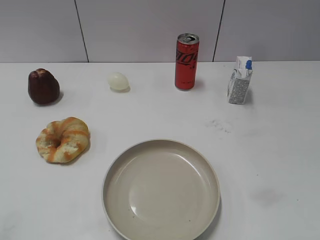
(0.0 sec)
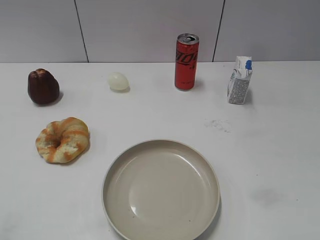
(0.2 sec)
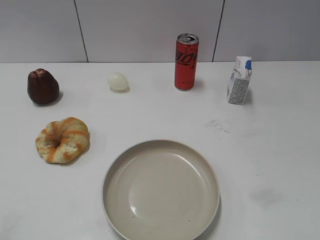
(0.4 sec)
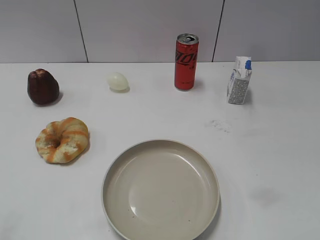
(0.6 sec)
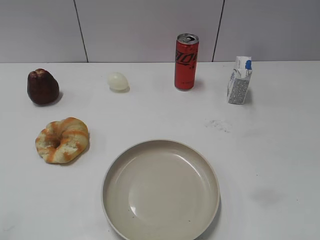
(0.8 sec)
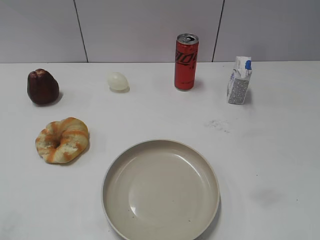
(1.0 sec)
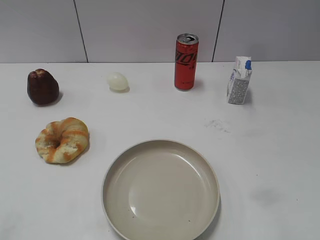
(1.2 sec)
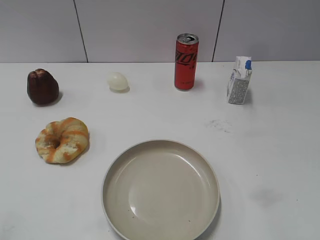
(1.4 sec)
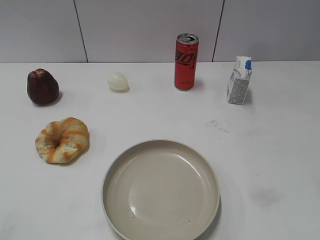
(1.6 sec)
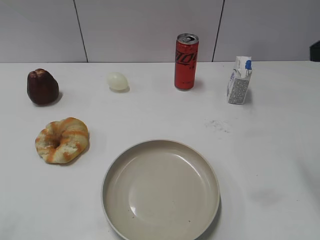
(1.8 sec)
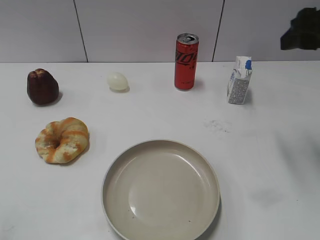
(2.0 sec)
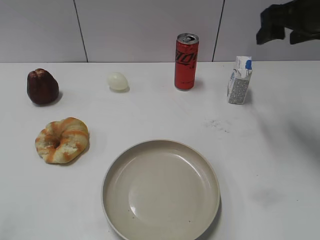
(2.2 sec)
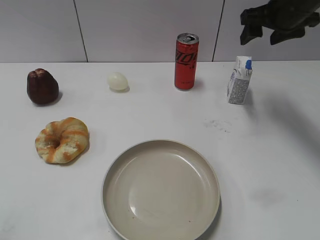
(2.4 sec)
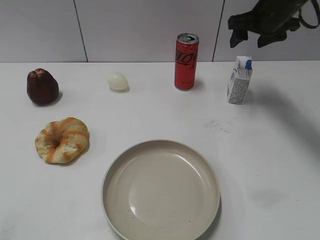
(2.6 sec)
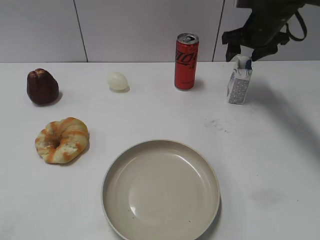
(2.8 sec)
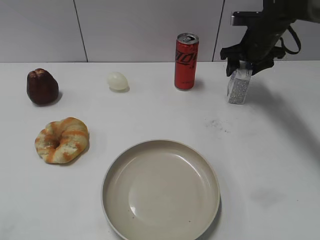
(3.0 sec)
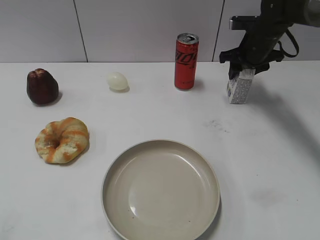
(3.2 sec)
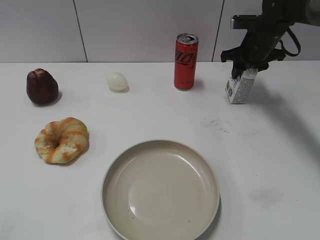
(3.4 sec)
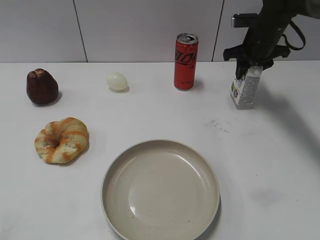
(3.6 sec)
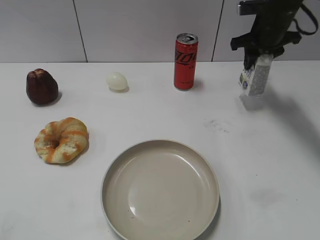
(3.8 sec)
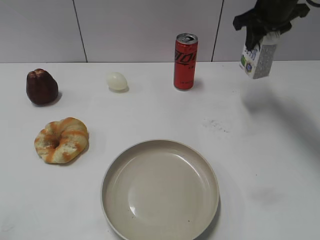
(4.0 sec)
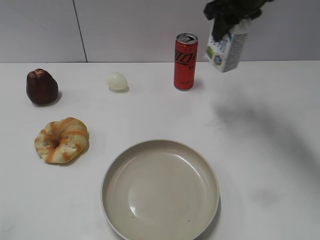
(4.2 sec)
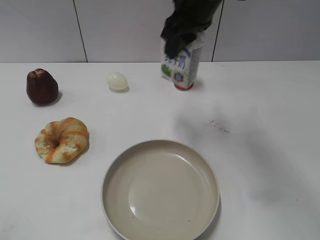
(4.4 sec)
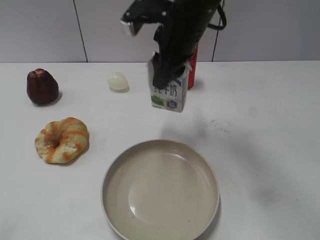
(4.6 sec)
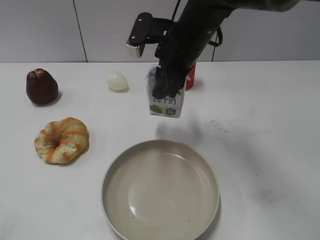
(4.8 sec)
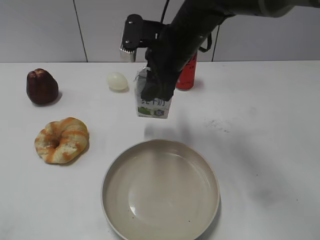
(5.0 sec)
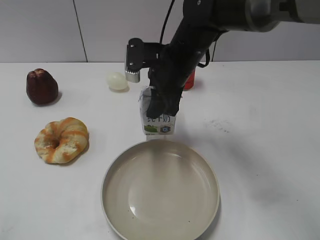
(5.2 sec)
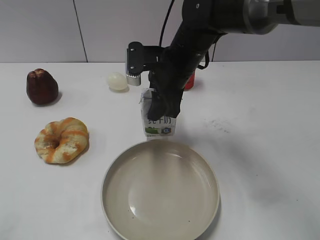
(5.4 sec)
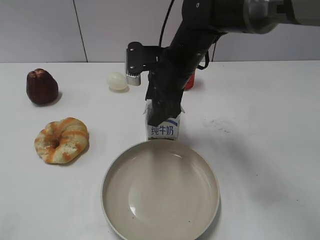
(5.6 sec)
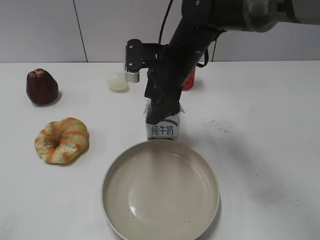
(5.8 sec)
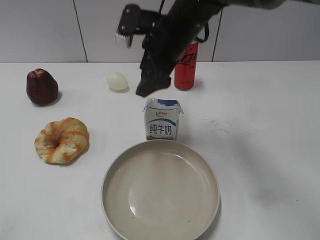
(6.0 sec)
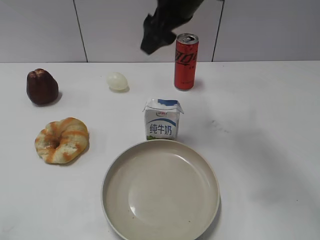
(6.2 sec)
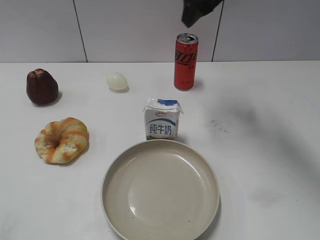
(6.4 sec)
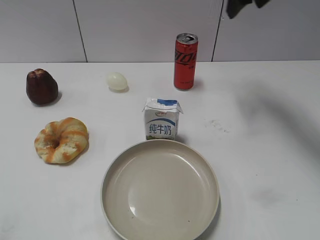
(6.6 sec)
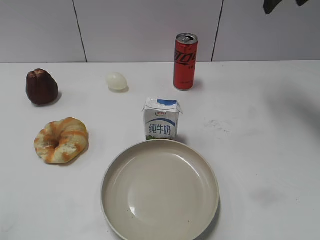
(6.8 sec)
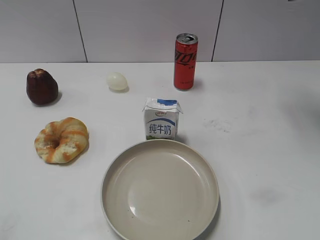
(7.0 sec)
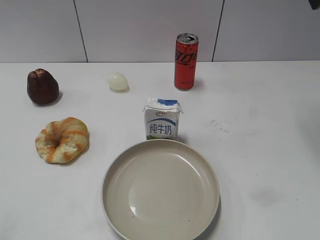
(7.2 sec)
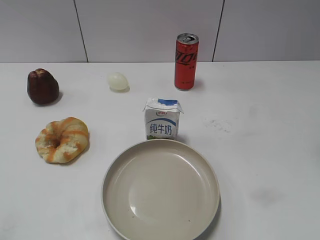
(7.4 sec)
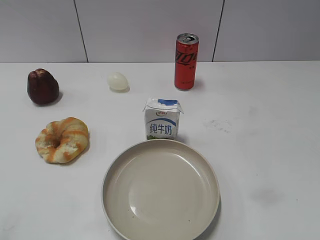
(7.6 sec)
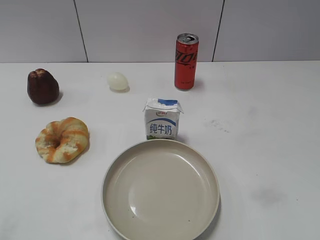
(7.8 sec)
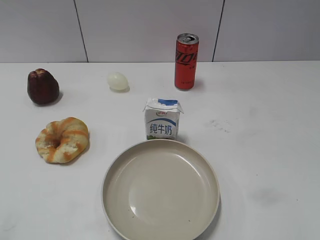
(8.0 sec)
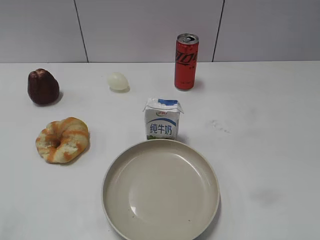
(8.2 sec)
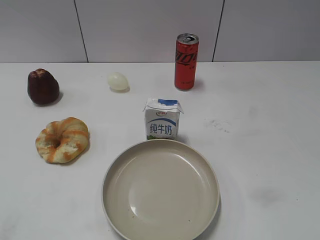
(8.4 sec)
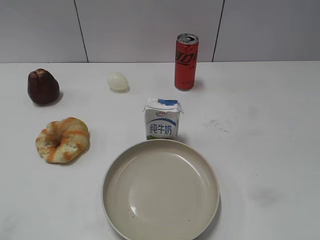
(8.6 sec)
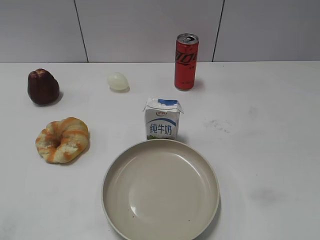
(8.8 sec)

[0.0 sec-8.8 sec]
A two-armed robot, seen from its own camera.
Step, 0.0 sec to 3.6 sec: Grasp the milk with right gripper.
Step, 3.8 sec to 5.6 sec: Place the milk on the table with right gripper.
1.4 sec to 3.0 sec: The right gripper heads forward and downward, covering some 40 cm.
3.0 sec to 4.4 sec: The right gripper shifts roughly 25 cm to the left, upward and backward, and closes its fingers.
4.4 sec to 5.8 sec: The right gripper heads downward, covering about 10 cm, and opens up.
5.8 sec to 7.4 sec: The right gripper shifts about 35 cm to the right, upward and backward.

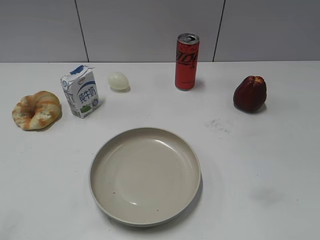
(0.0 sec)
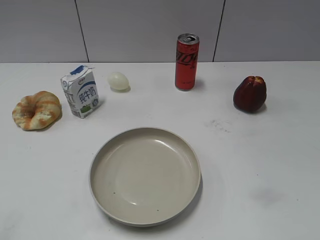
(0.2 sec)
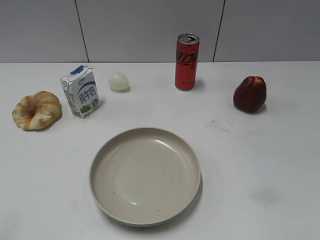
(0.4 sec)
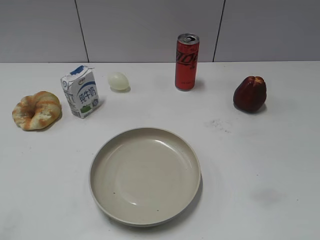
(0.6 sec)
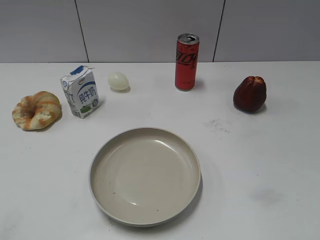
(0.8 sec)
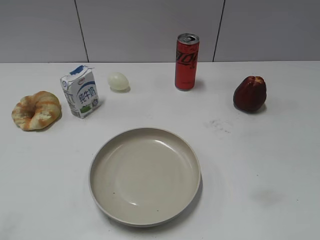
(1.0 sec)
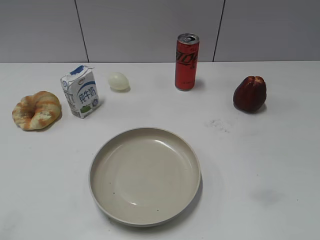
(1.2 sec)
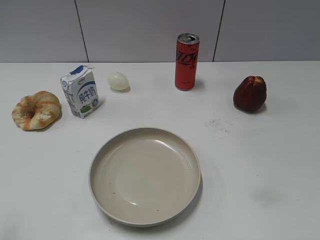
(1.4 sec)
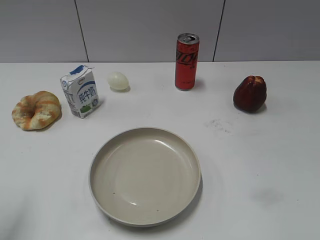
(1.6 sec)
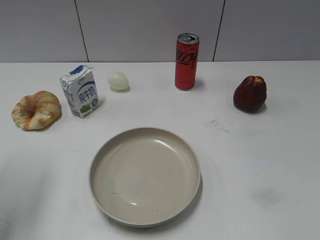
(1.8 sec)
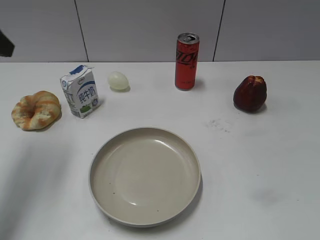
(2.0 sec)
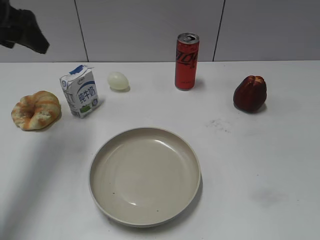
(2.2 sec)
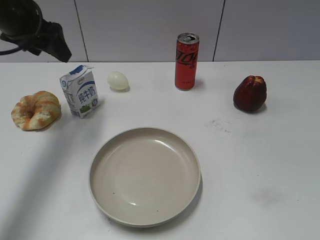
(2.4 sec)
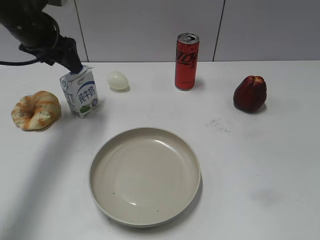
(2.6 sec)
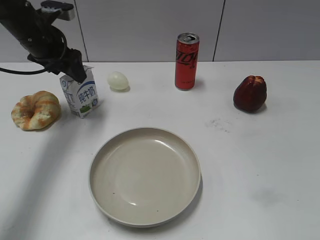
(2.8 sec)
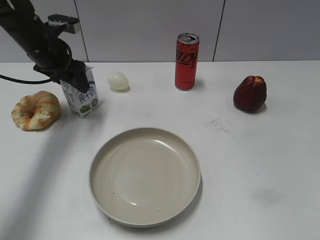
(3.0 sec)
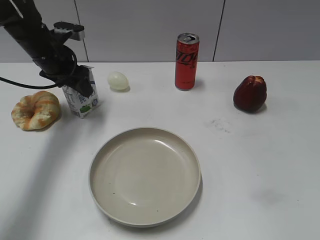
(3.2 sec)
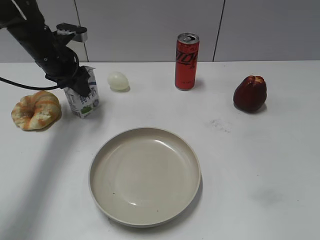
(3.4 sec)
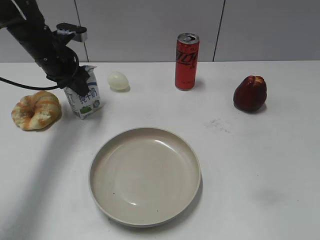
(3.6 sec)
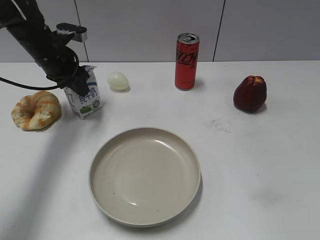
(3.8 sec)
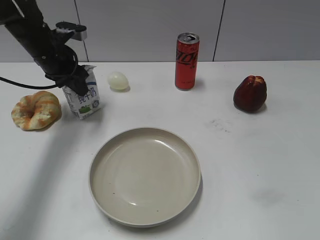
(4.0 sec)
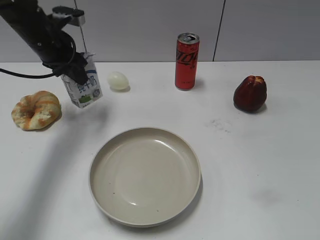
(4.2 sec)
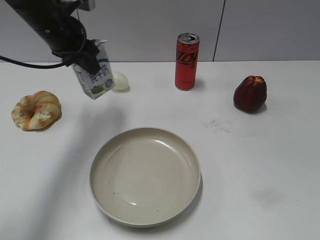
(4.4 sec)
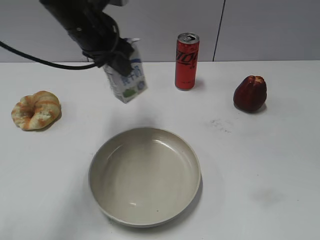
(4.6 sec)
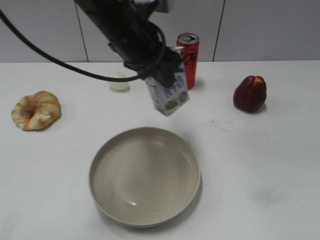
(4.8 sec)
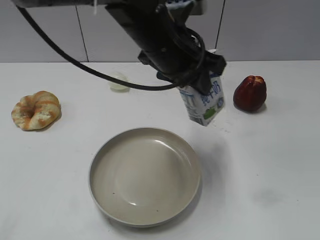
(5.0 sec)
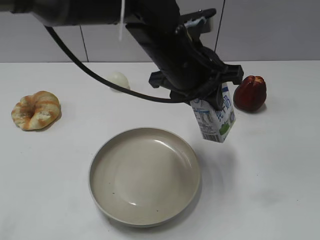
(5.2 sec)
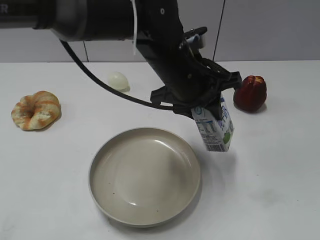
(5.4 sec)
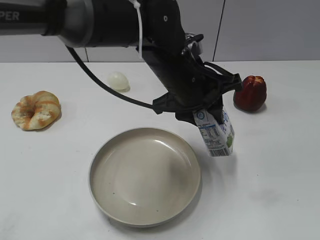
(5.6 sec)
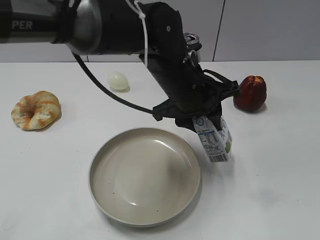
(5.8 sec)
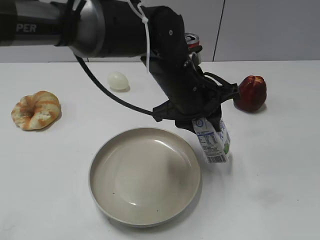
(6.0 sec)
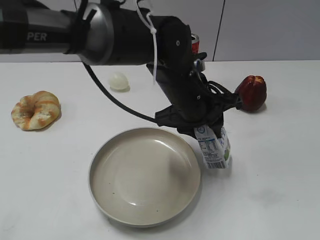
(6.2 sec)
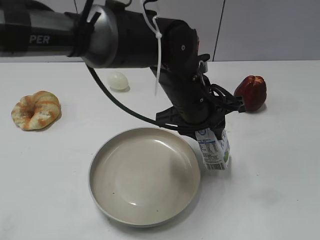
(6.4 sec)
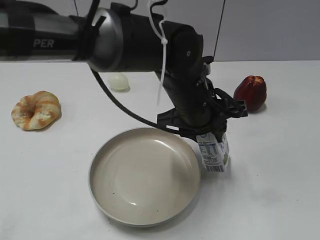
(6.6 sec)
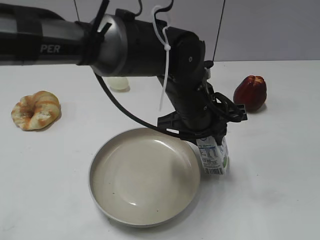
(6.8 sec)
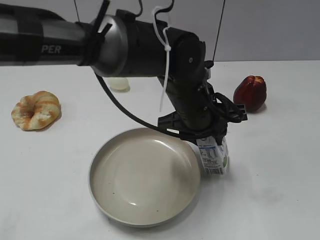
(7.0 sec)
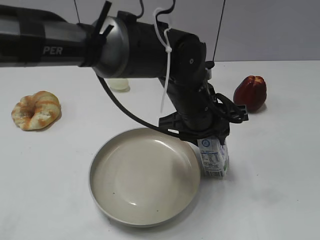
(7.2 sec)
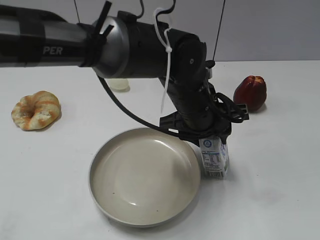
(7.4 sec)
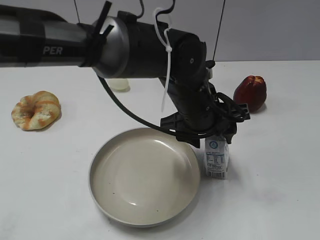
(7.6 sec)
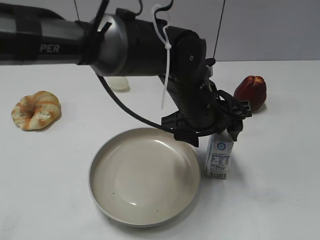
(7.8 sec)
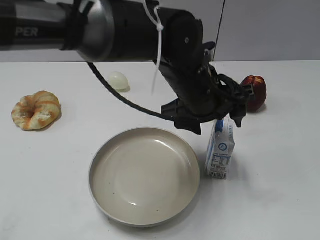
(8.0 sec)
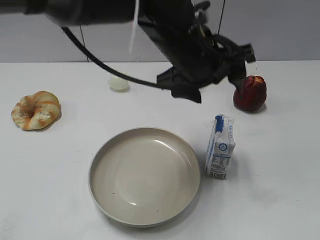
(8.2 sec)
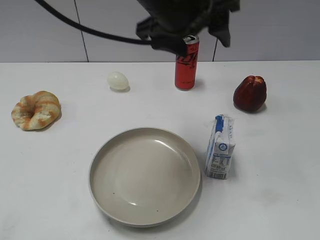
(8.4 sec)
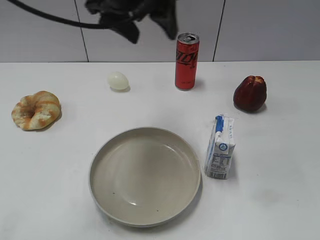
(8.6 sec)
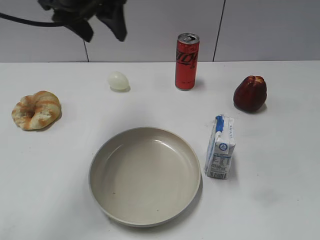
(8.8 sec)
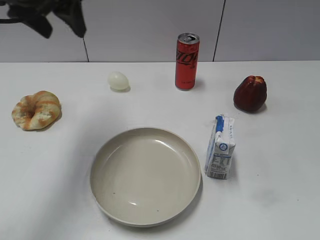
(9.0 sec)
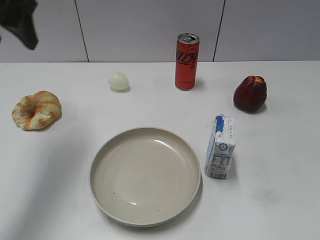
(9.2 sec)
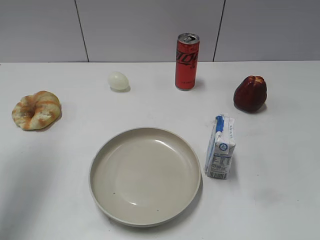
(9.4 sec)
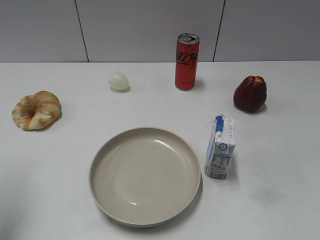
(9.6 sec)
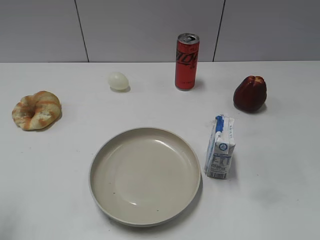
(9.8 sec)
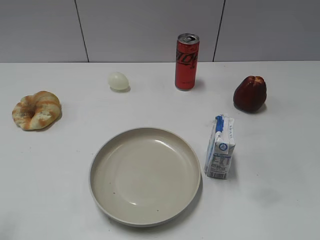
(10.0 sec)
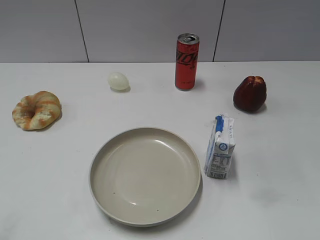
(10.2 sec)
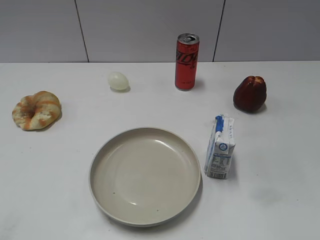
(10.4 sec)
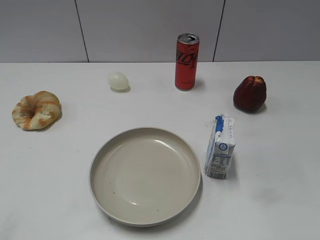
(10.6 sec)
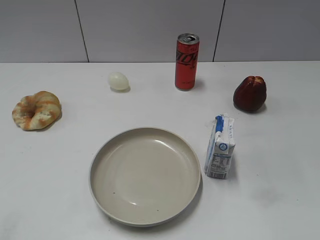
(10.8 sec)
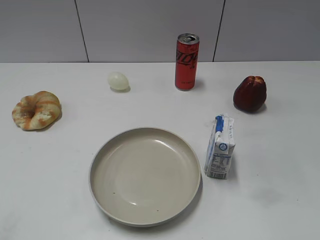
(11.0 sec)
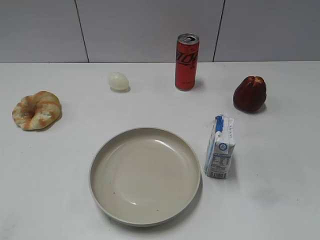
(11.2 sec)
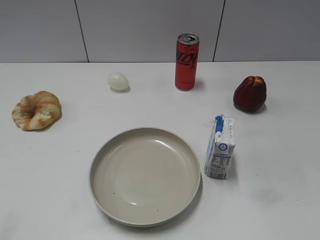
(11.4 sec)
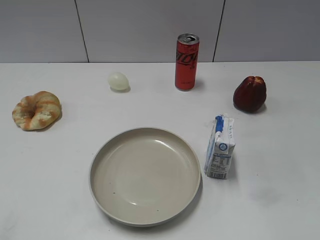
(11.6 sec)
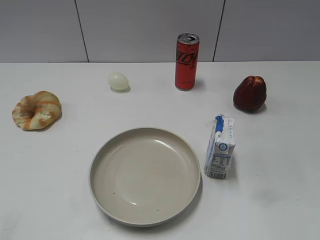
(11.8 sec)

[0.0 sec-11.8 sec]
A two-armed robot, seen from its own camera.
Step, 1.2 sec to 3.6 sec: Grasp the milk with left gripper.
Step, 3.8 sec to 8.0 sec: Place the milk on the table with left gripper.
1.4 sec to 3.0 sec: The left gripper shifts about 35 cm forward.
3.0 sec to 4.4 sec: The left gripper travels upward and to the right by approximately 10 cm, and closes.
4.4 sec to 6.0 sec: The left gripper is displaced to the right and backward by some 20 cm.
6.0 sec to 7.4 sec: The grippers make only small movements.
7.4 sec to 8.8 sec: The left gripper goes roughly 25 cm to the left, upward and forward, and opens.
8.8 sec to 10.4 sec: The left gripper goes some 35 cm backward and to the left.
